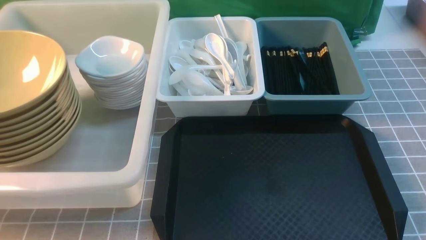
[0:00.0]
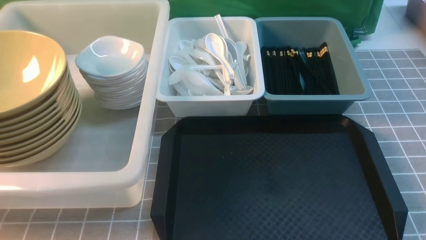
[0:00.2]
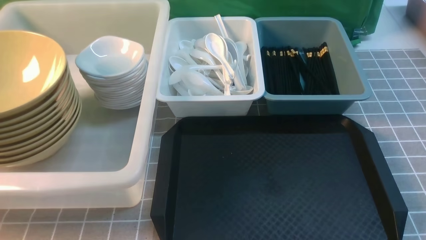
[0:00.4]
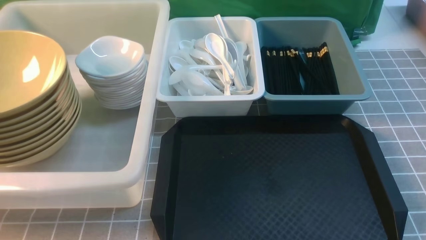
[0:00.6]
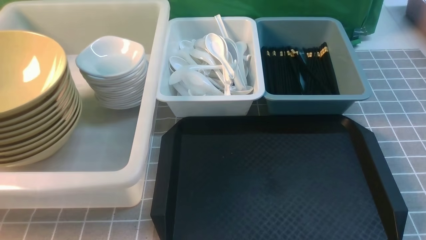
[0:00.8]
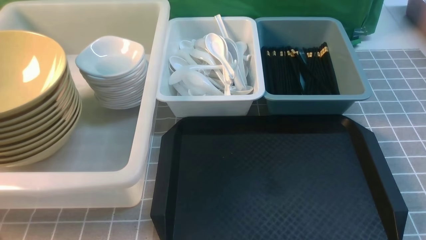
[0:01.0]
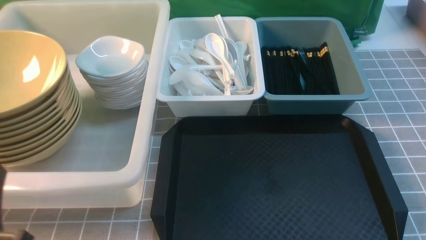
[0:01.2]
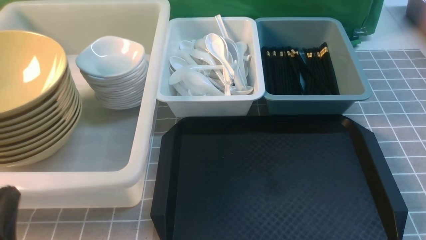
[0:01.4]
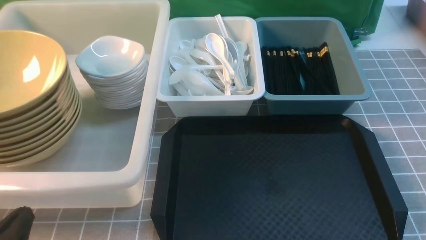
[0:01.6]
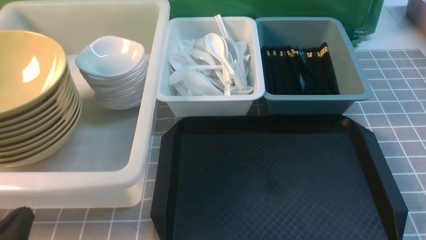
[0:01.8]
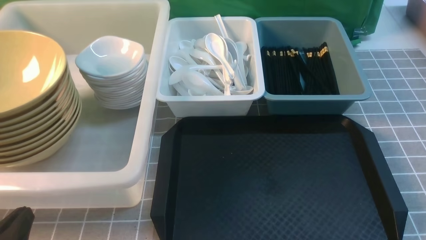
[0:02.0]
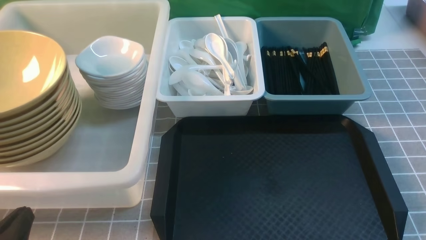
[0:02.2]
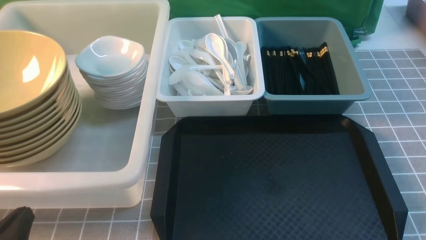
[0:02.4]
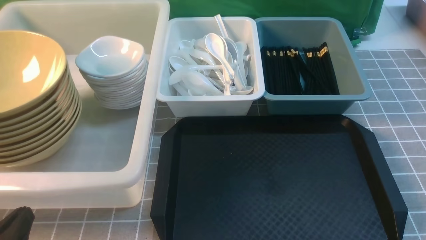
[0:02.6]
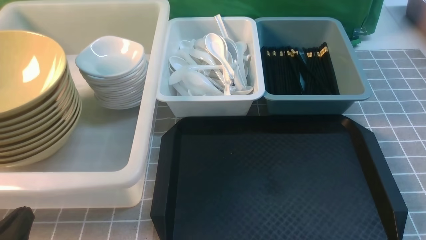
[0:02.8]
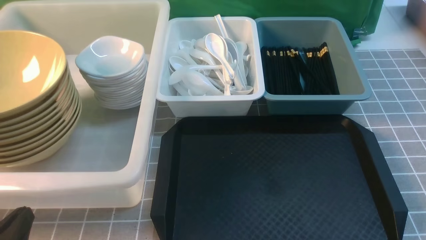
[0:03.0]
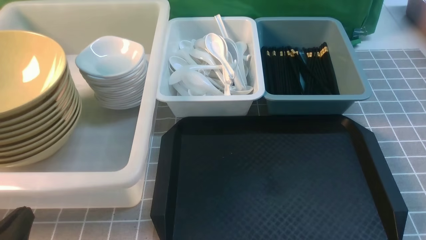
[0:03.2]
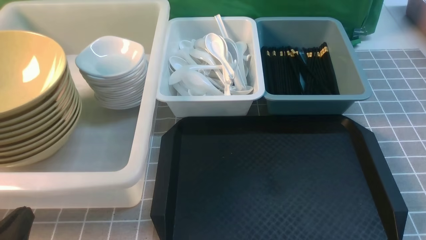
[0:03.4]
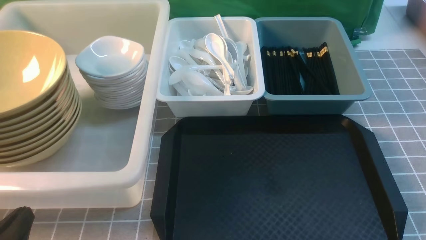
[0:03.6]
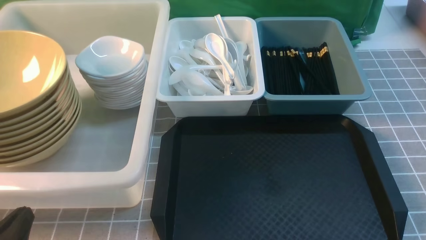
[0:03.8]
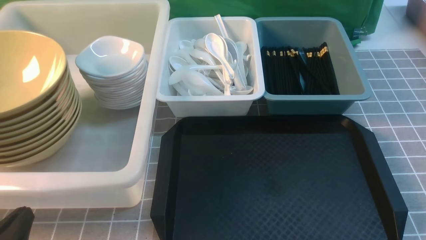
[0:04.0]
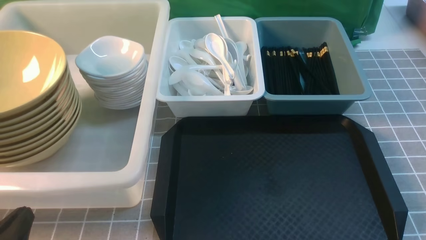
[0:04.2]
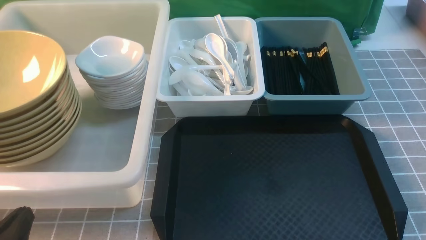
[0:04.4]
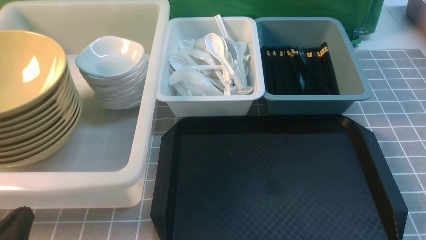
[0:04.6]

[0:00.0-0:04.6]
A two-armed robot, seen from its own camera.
Task of the whole recording: on grey table put chopsticks spoon bowls plates into blue grey white boxes.
0:00.0 to 0:01.6: The left gripper shifts some 15 cm downward.
0:01.6 to 0:04.6: Both grippers stay about where they are.
